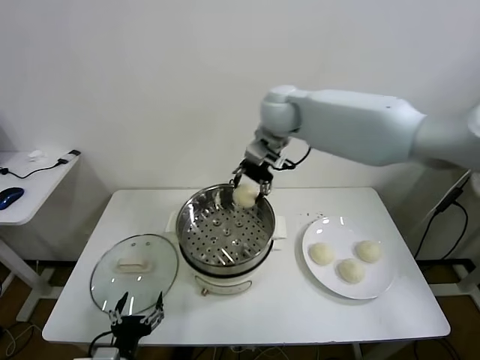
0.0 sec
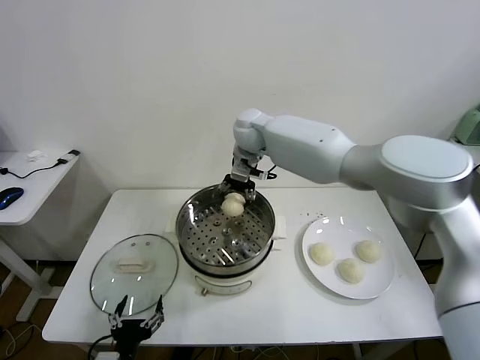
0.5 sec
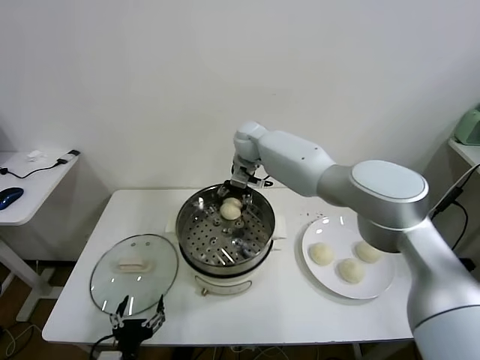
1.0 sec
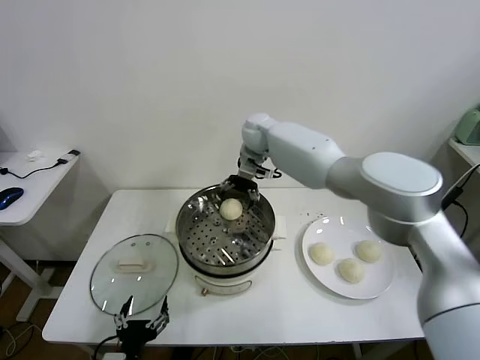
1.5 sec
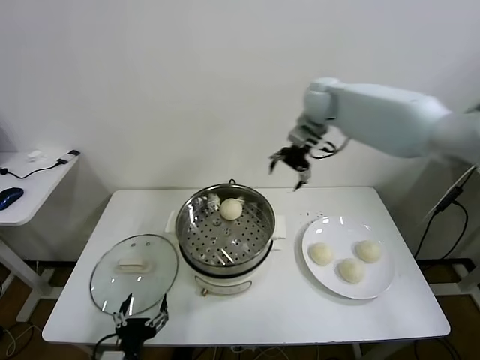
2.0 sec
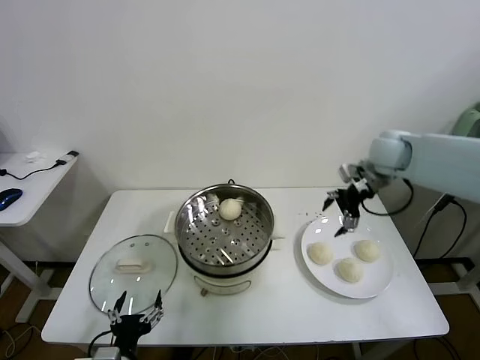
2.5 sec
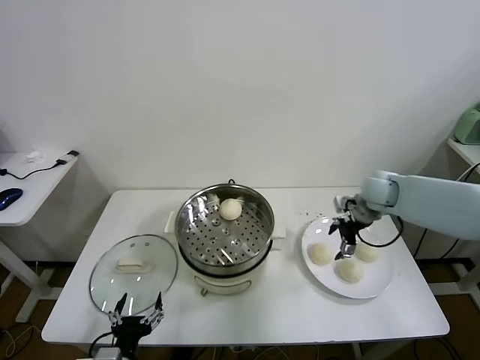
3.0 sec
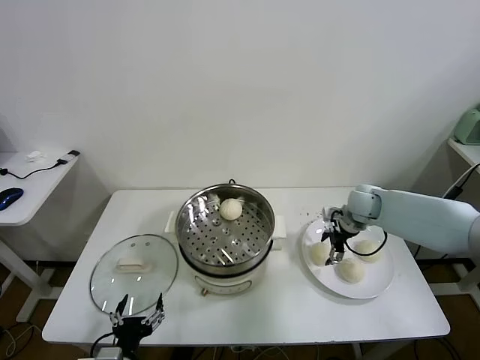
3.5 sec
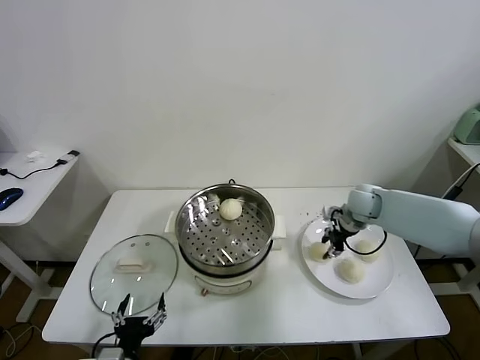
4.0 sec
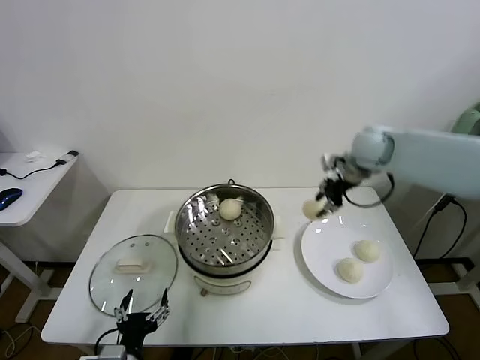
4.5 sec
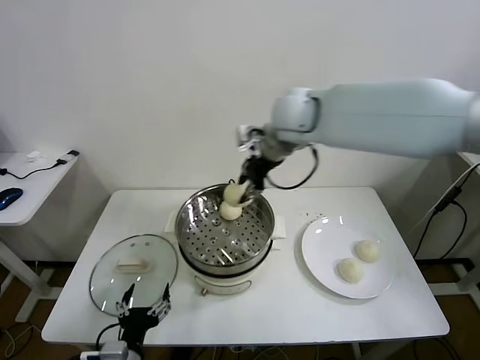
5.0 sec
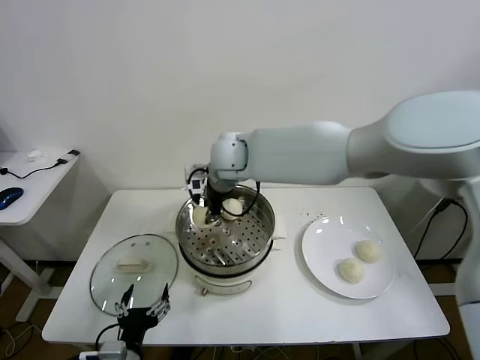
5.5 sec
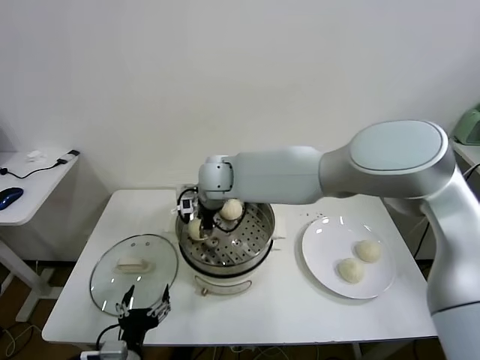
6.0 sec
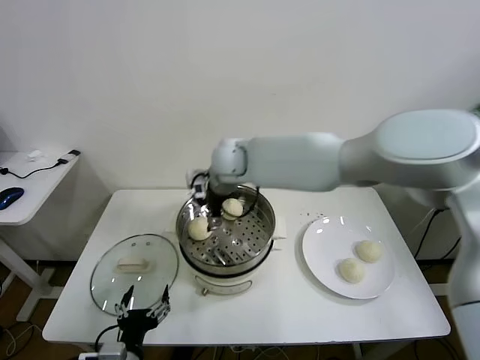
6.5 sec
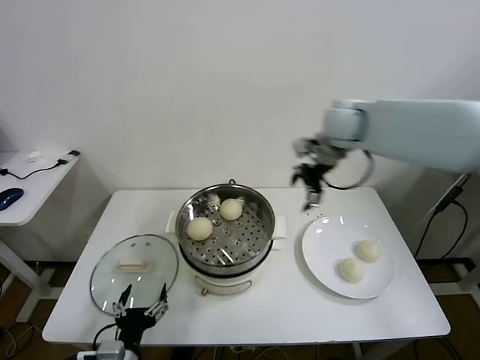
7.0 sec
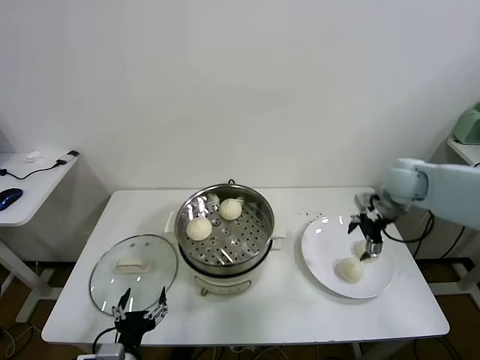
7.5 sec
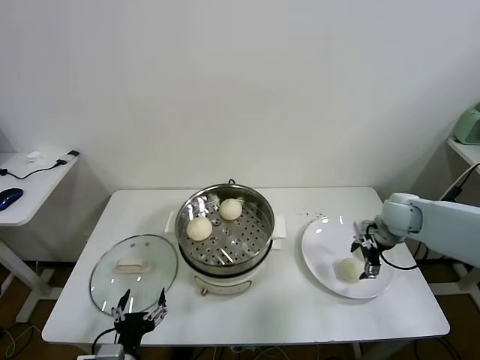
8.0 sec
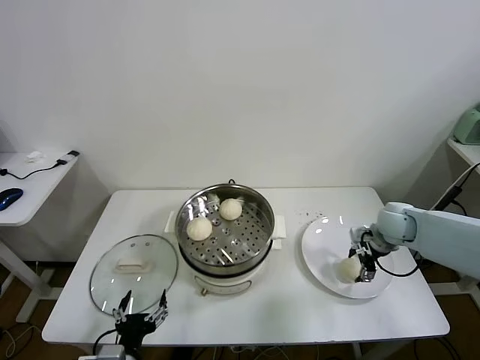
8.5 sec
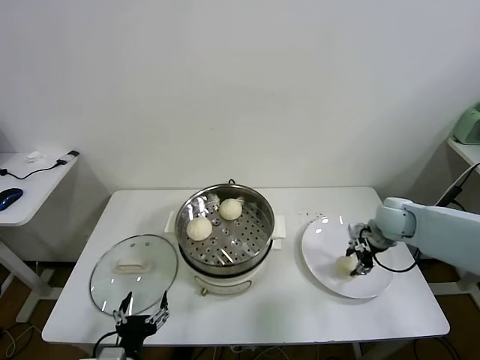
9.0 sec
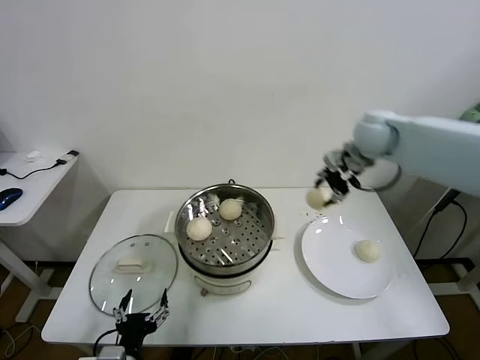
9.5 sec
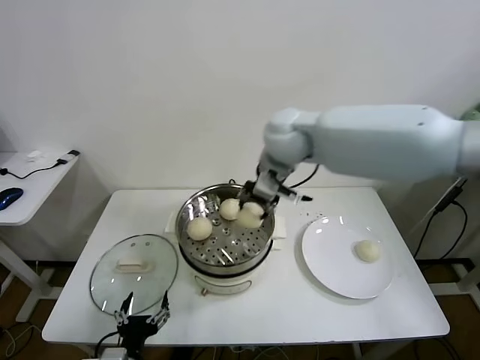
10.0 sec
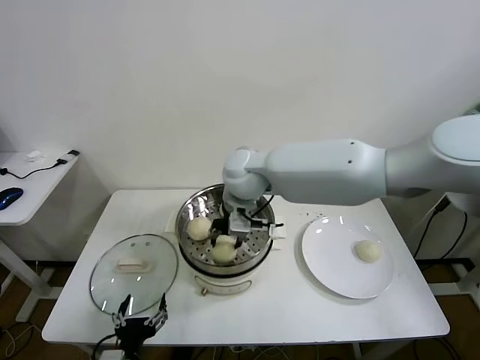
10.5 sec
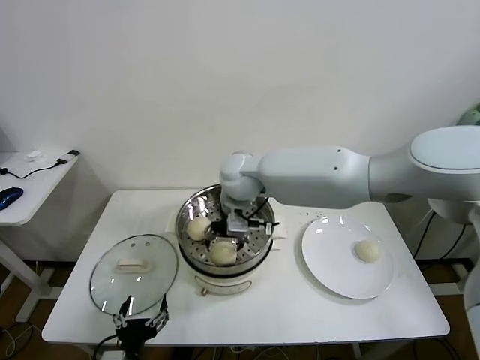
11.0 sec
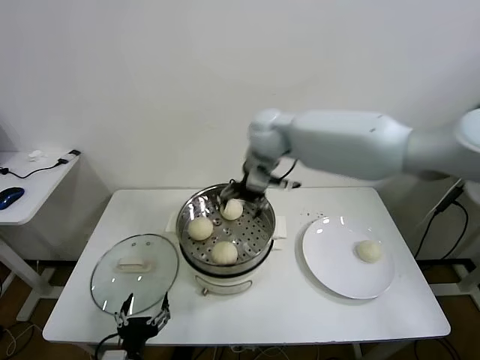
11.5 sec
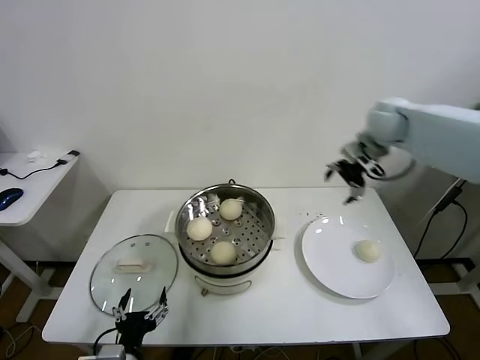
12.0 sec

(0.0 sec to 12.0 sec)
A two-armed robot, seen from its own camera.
Task of the whole recording: take steamed baozi put them in steamer.
Step, 0.0 sec - 1.5 sec: Place the baozi on the steamer with right gripper.
Step, 2.0 sec - 3.5 sec: Grasp the baozi in the plate with right gripper.
Step, 4.0 sec - 6.0 sec: Place the baozi on the steamer with right gripper.
Step, 6.5 sec - 8.5 sec: Grasp the baozi in the plate with right gripper.
Step, 9.0 sec - 11.0 sec: Place the baozi on the steamer with right gripper.
0.0 sec - 2.0 sec: The right gripper heads to the right and forward, covering approximately 15 cm, and opens up.
2.0 sec - 4.0 sec: The right gripper heads downward and to the right, covering about 25 cm, and closes its fingers.
4.0 sec - 6.0 sec: The right gripper is displaced to the left by about 35 cm, and opens its fingers.
6.0 sec - 8.0 sec: The right gripper goes approximately 40 cm to the right, and opens its fingers.
8.0 sec - 10.0 sec: The right gripper goes some 35 cm to the left and upward, and closes up.
10.0 sec - 12.0 sec: The right gripper heads to the right, covering some 25 cm, and opens up.

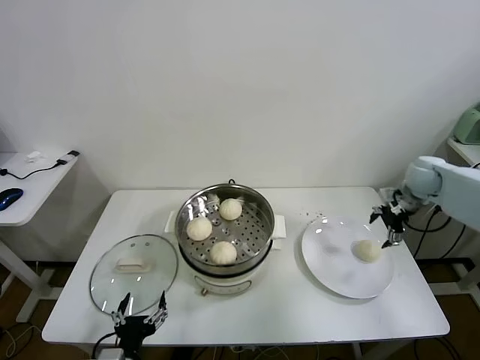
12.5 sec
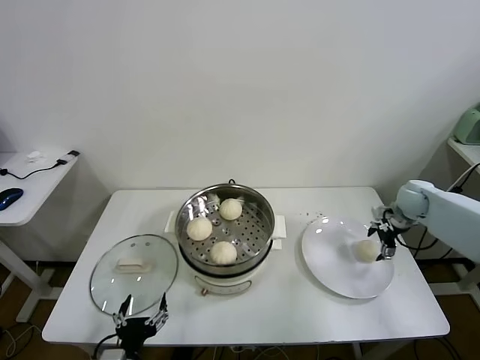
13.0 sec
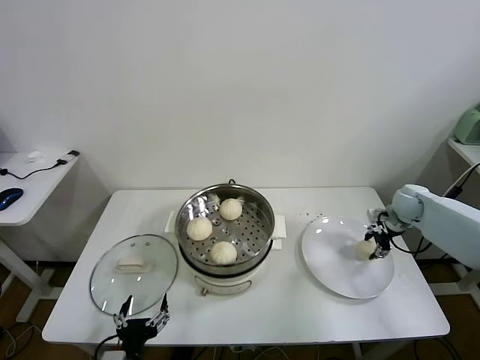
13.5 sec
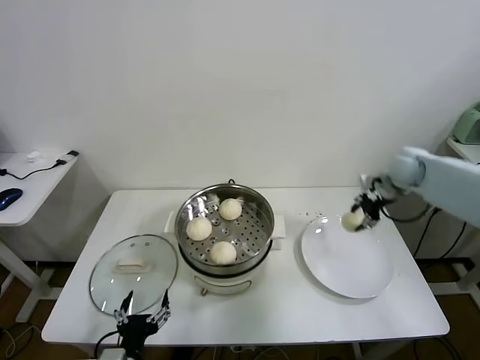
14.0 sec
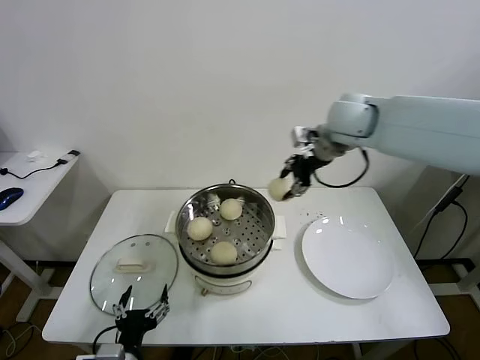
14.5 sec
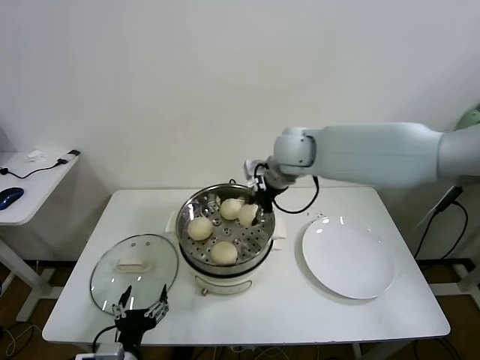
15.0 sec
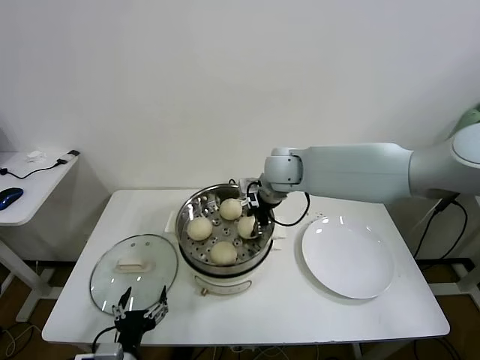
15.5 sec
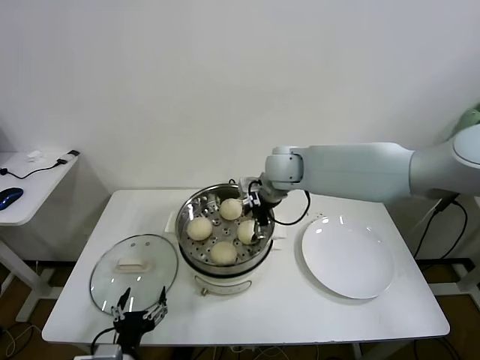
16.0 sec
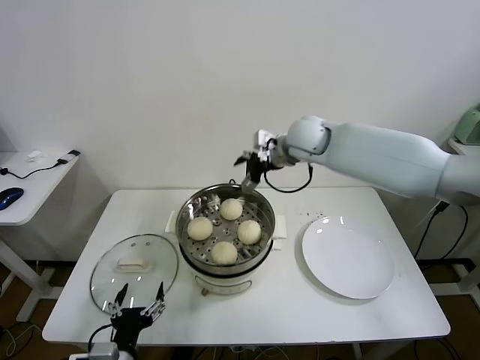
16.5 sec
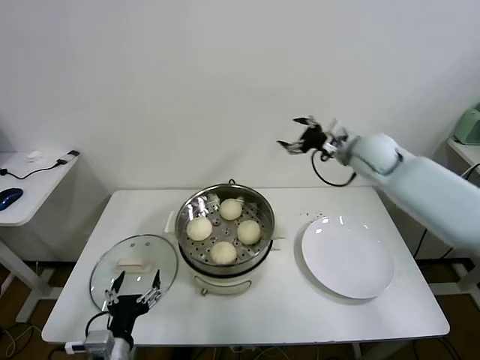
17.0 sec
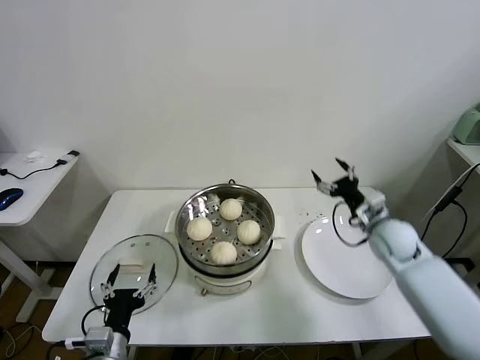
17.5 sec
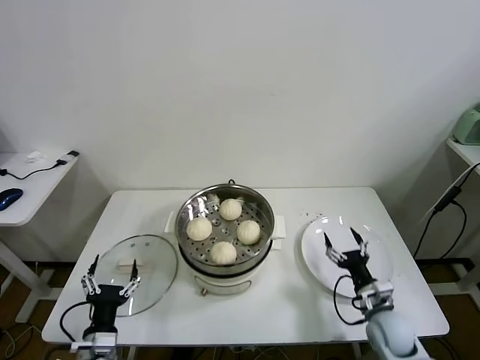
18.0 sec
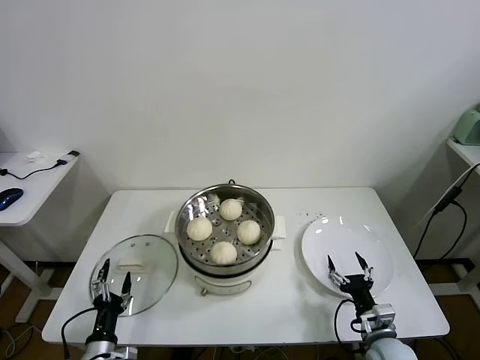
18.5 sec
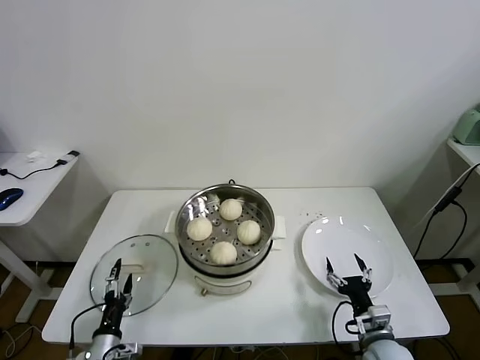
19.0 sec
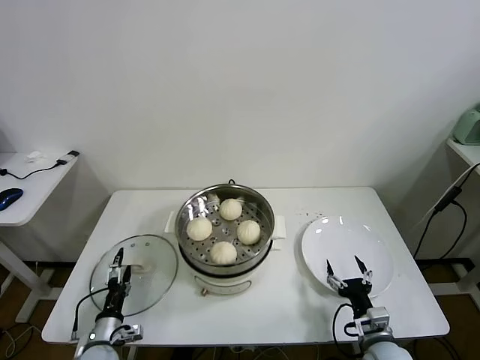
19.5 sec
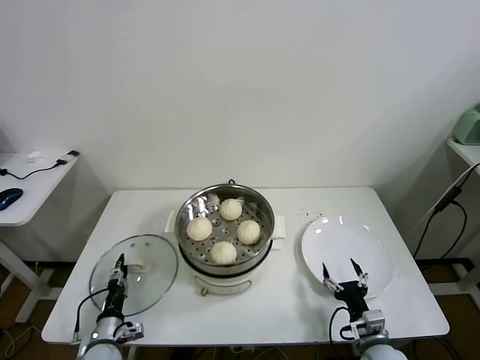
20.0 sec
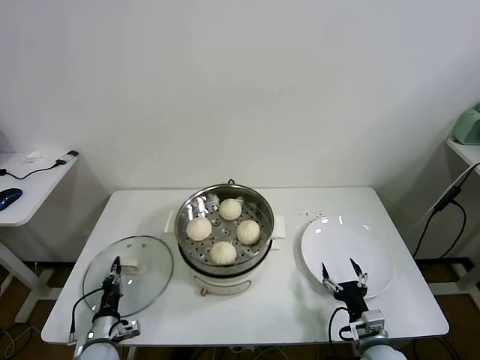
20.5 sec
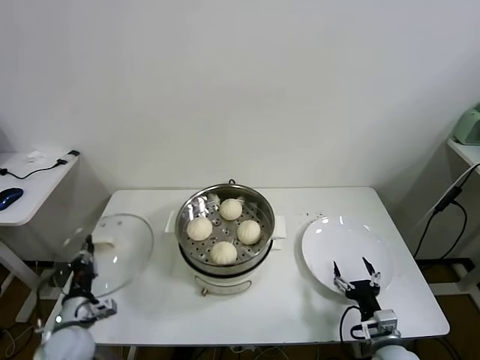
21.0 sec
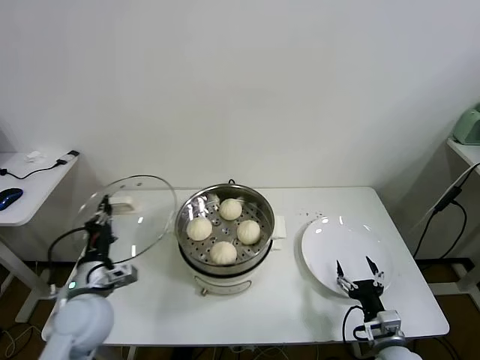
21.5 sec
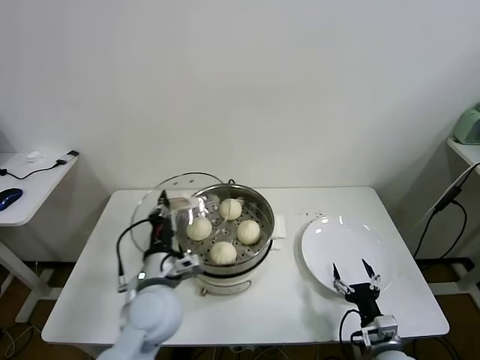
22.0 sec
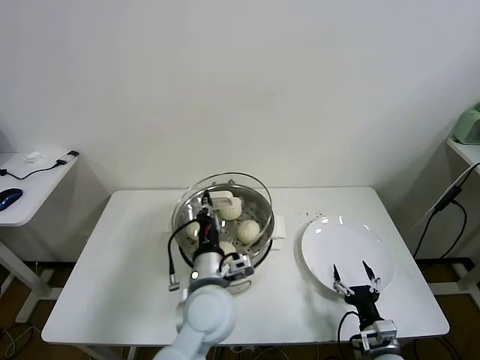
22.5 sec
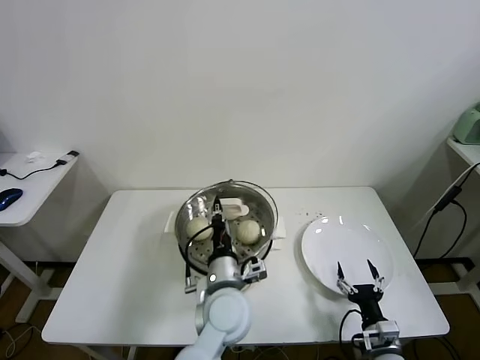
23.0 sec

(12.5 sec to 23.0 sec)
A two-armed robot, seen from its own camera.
Task of the whole recording: take steamed baozi put them in steamer.
Step, 14.0 sec - 15.5 sec: Place the baozi on the steamer with right gripper.
Step, 16.0 sec - 20.0 sec: Grasp the pot lid with left gripper.
12.5 sec - 14.5 sec: The right gripper goes about 30 cm to the left and upward, and closes.
14.5 sec - 16.5 sec: The right gripper shifts some 10 cm to the left and downward, and opens its fingers.
16.5 sec - 19.0 sec: The right gripper heads downward, backward and to the right, covering roughly 50 cm. Meanwhile the left gripper heads downward and to the left, covering approximately 15 cm.
19.0 sec - 21.0 sec: The left gripper goes some 10 cm upward and forward, and closes.
21.0 sec - 23.0 sec: The left gripper goes some 35 cm to the right and upward.

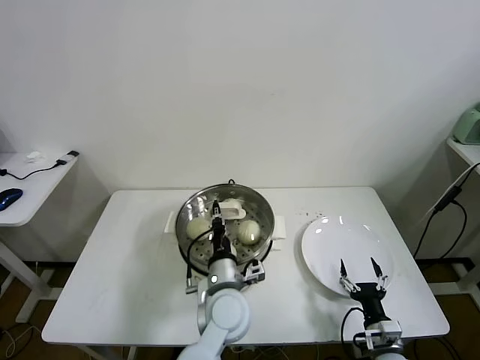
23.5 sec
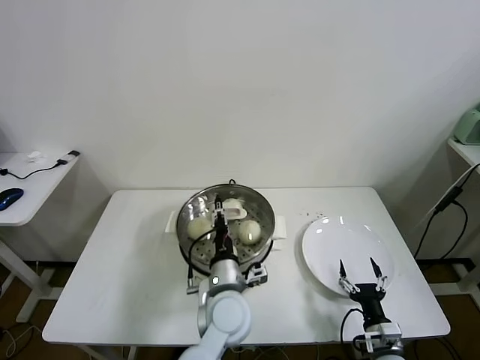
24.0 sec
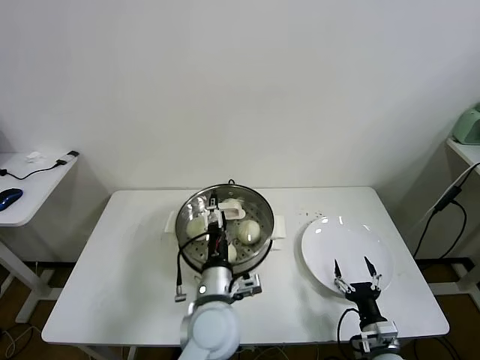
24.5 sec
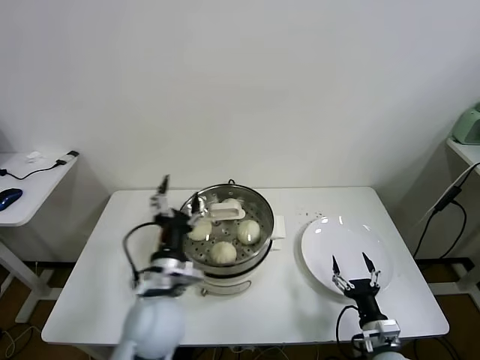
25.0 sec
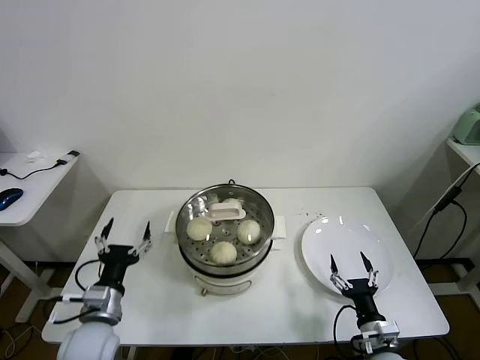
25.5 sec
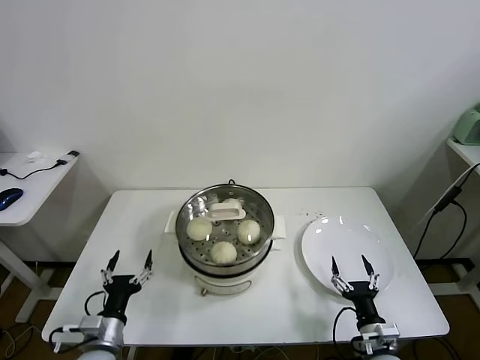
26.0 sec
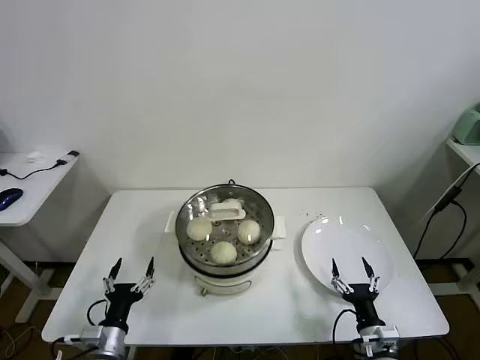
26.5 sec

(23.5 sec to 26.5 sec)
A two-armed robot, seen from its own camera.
Task of the whole recording: take steamed baozi put them in steamer.
23.5 sec - 25.0 sec: The left gripper travels to the left and upward by roughly 10 cm, and opens up.
25.0 sec - 26.5 sec: The left gripper travels to the left and downward by some 25 cm.
